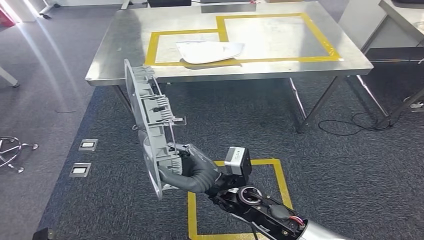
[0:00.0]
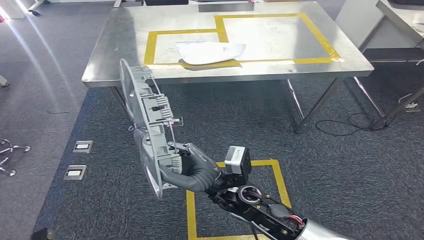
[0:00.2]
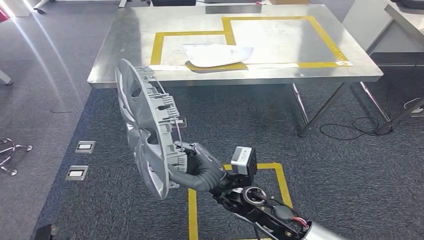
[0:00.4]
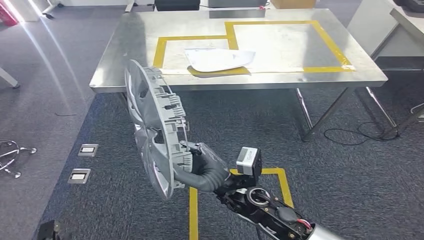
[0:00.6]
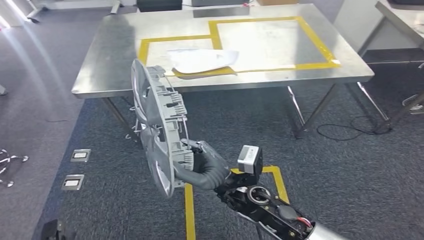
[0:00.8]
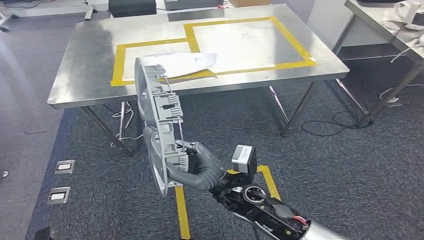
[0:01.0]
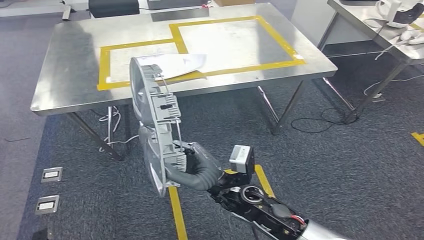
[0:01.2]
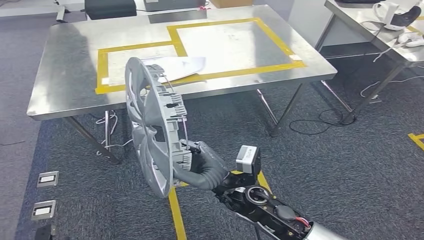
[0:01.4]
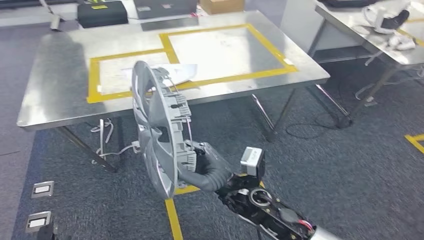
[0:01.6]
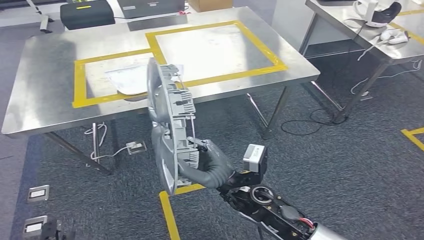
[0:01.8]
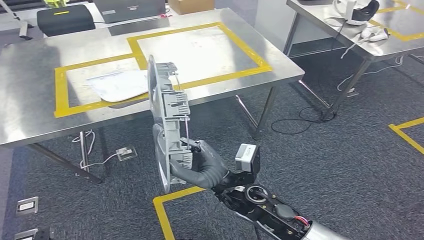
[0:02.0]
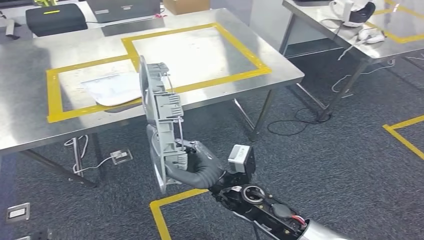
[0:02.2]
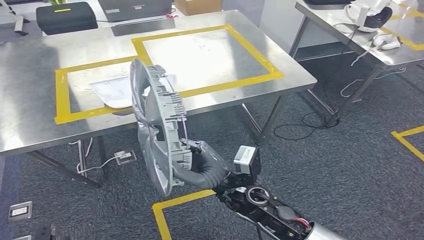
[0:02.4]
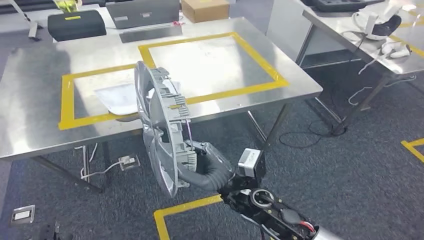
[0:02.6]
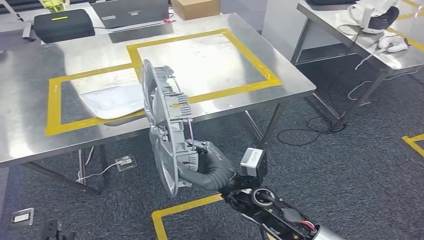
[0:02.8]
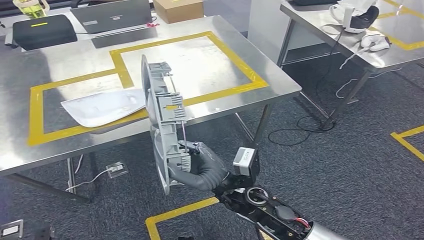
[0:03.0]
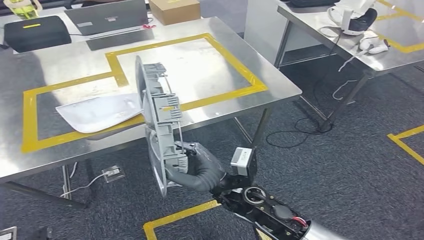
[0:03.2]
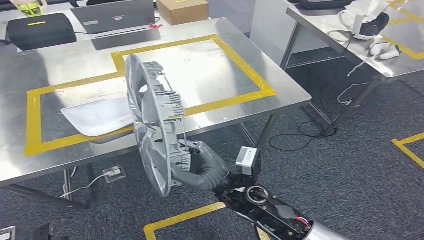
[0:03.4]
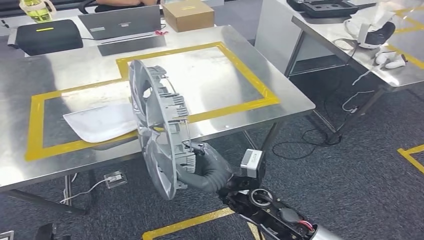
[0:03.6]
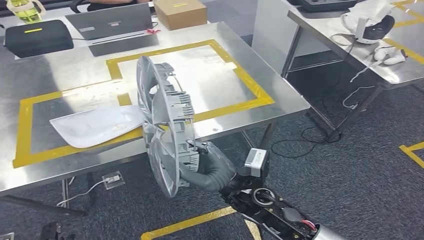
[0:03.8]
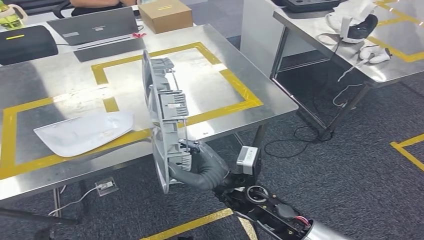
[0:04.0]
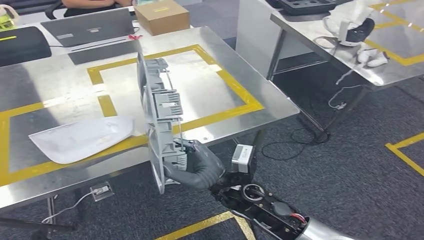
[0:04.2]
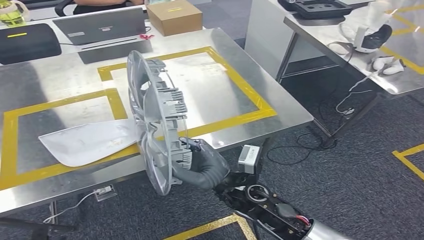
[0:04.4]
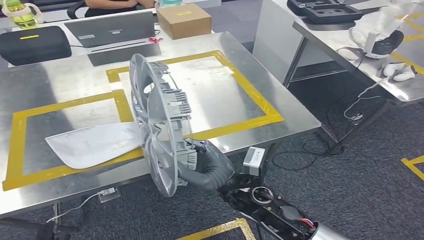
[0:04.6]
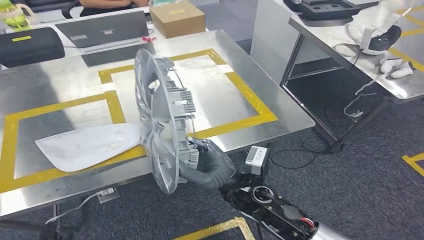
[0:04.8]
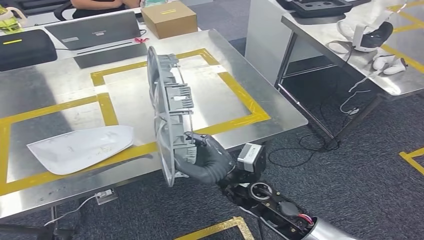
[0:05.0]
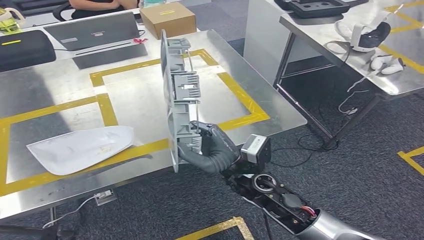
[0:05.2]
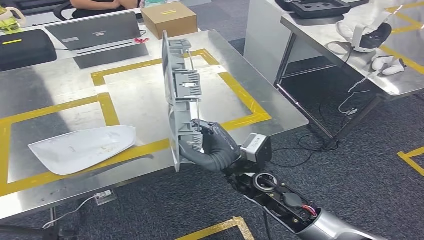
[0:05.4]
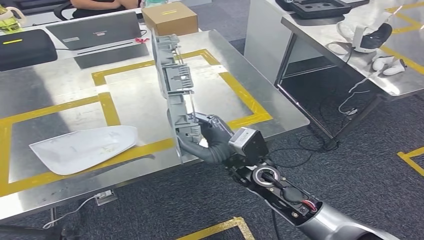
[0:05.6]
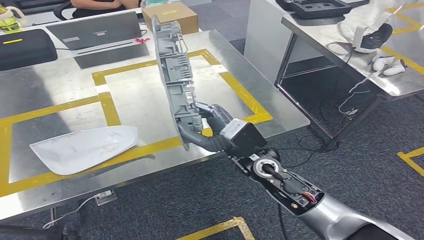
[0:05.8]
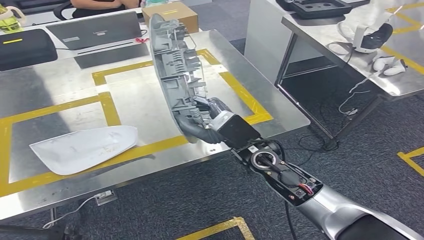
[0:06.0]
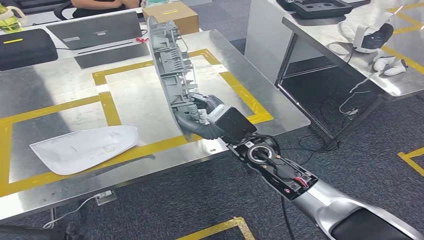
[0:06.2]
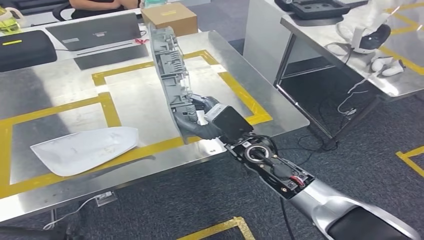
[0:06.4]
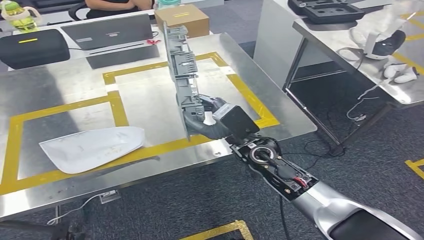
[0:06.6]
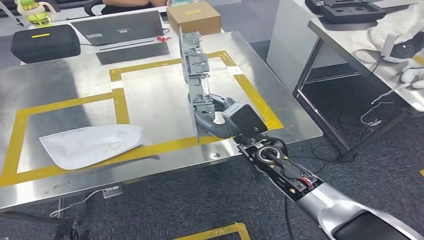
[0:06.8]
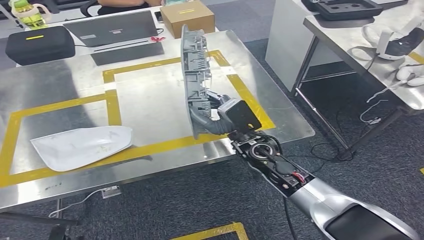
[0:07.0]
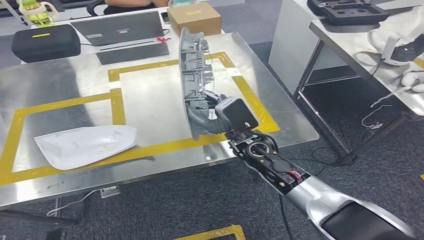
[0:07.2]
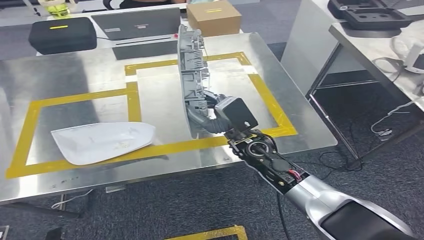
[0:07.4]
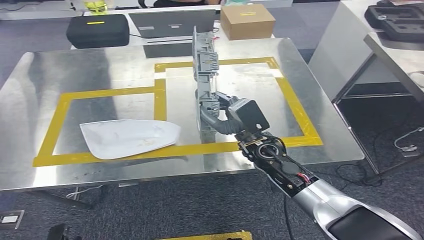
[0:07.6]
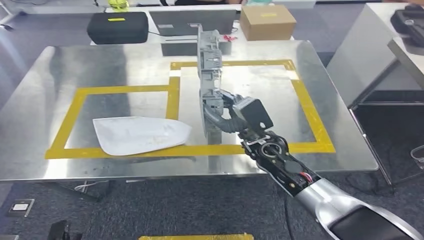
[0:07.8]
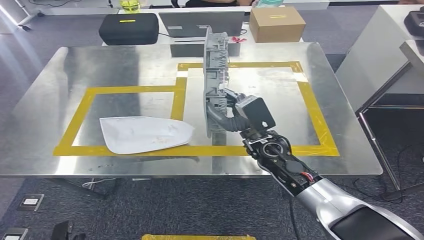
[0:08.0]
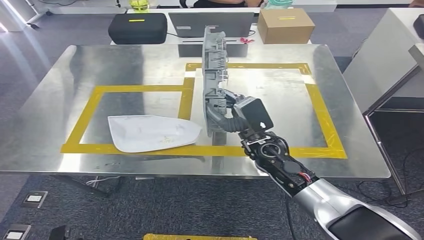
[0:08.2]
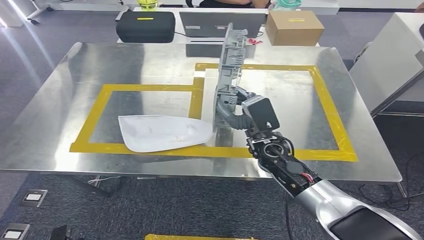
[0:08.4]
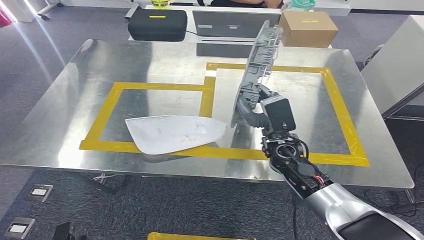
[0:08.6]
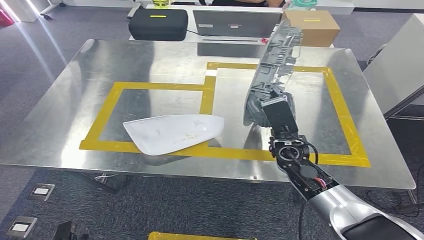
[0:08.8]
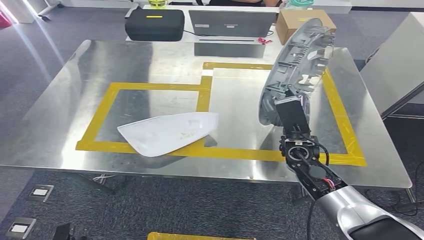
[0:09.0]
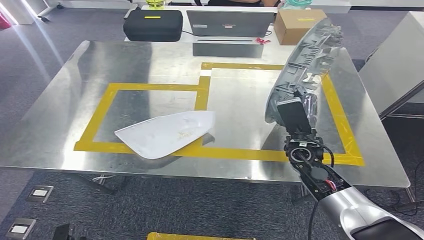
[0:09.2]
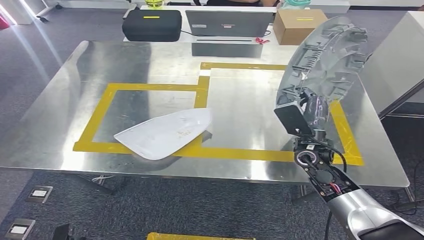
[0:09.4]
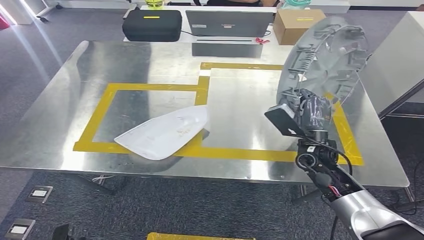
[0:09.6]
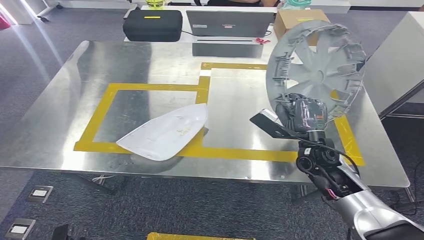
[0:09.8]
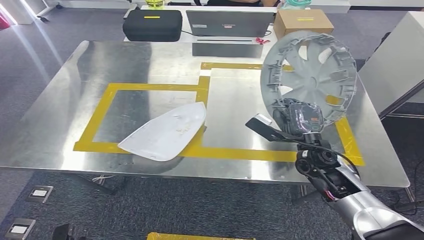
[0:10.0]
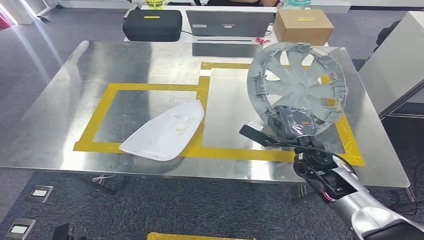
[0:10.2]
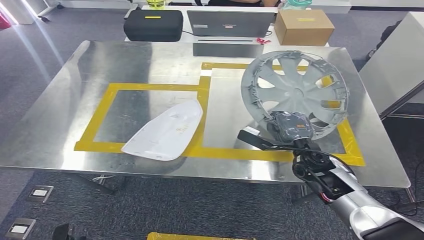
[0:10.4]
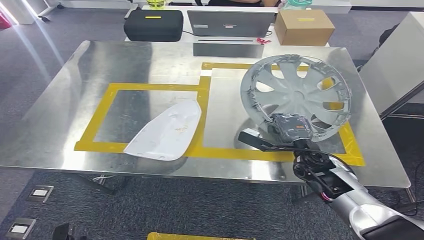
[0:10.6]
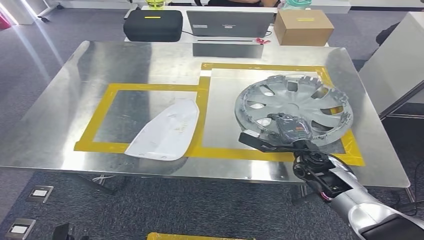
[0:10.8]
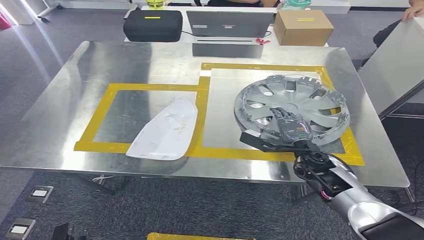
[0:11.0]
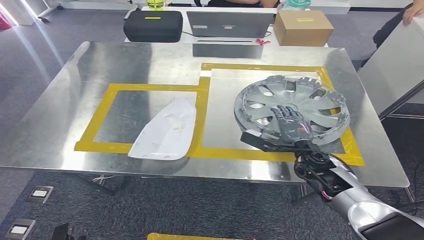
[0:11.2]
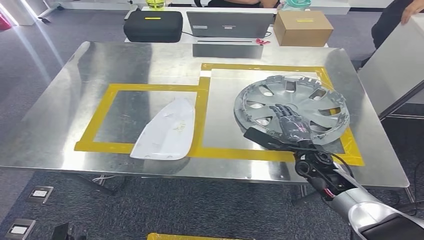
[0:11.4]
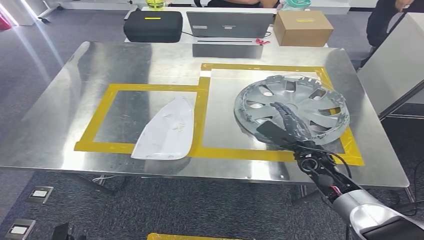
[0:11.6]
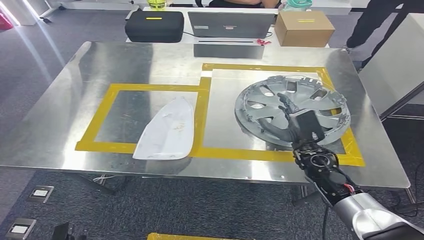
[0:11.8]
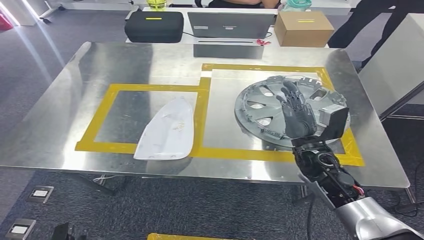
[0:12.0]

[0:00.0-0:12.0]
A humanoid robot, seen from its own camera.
Step, 0:00.0 to 0:03.0: Move the small component to the workbench.
0:09.0 to 0:10.4: The right hand heads downward, covering roughly 5 cm.

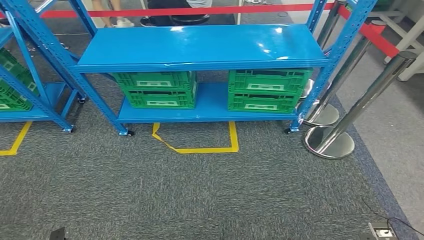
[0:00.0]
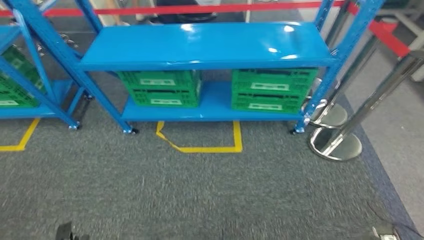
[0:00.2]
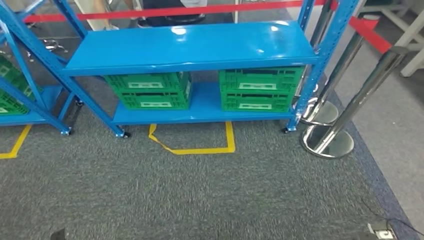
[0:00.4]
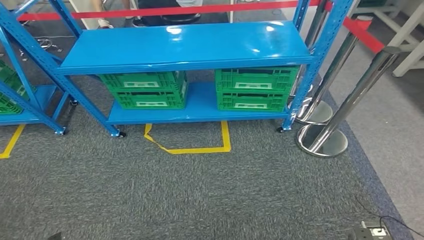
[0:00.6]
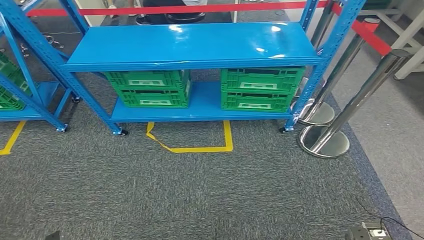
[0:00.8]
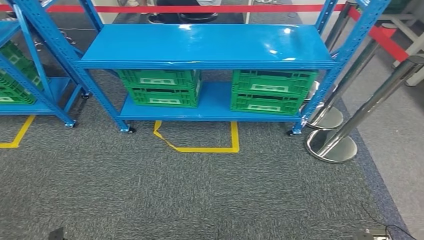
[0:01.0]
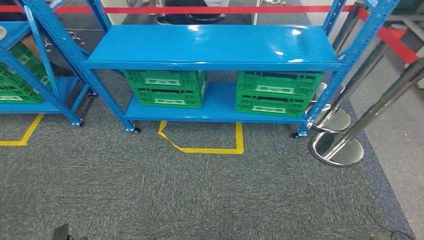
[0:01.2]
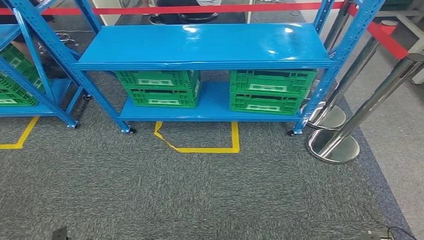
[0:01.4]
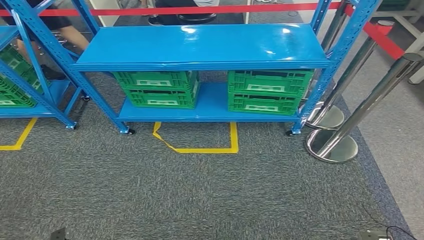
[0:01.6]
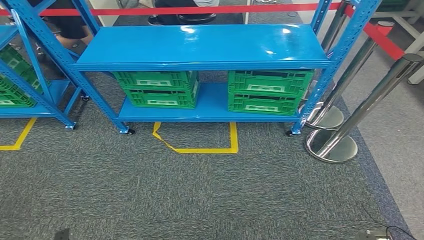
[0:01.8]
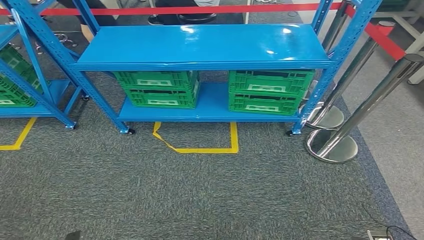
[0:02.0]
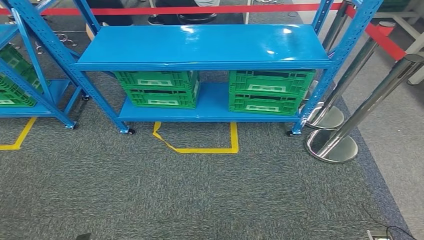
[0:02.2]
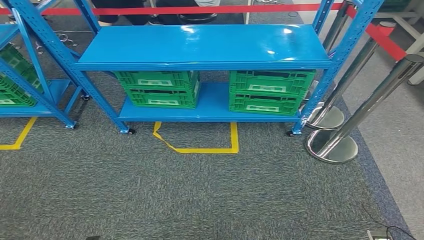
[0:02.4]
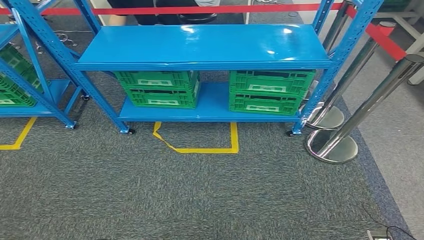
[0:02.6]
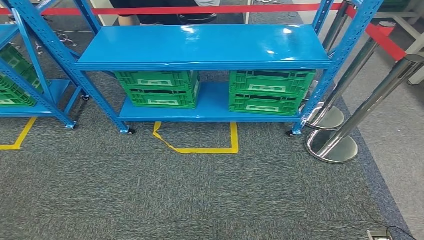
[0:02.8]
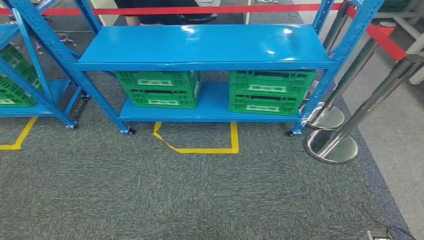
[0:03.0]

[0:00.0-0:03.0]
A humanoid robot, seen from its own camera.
Step, 0:00.0 to 0:02.8: Move to the initial position at the workbench.
0:00.0 to 0:01.6: Both hands stay about where they are.
0:01.6 to 0:03.0: The left hand moves backward and to the right, about 10 cm. The right hand goes some 10 cm backward and to the left.
